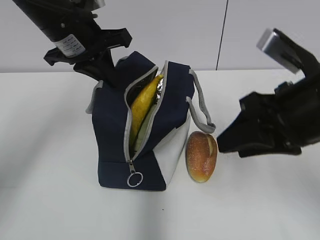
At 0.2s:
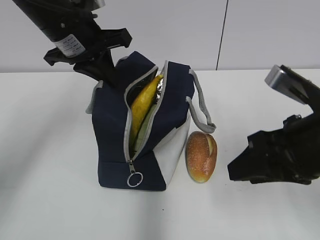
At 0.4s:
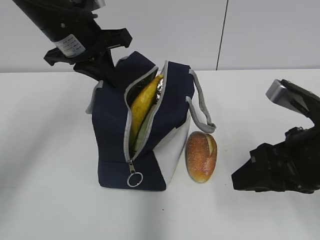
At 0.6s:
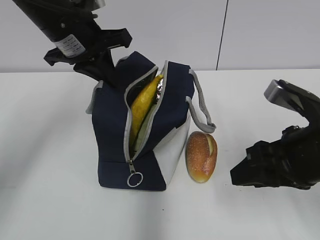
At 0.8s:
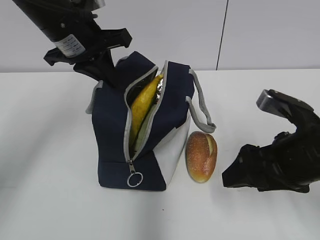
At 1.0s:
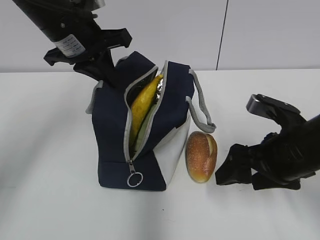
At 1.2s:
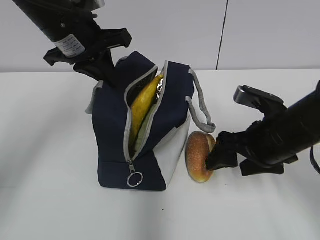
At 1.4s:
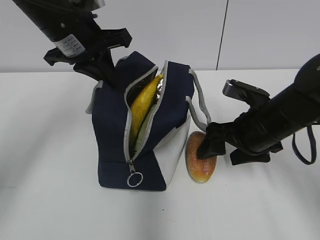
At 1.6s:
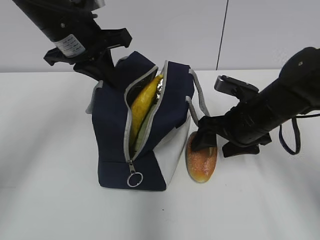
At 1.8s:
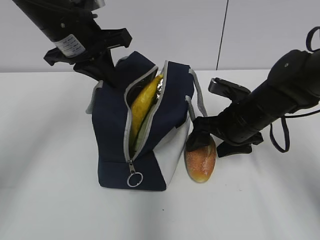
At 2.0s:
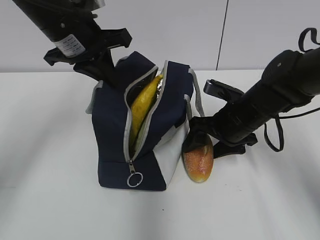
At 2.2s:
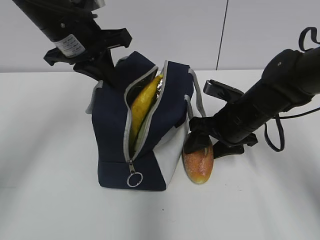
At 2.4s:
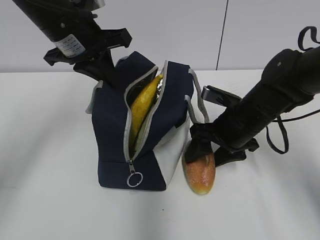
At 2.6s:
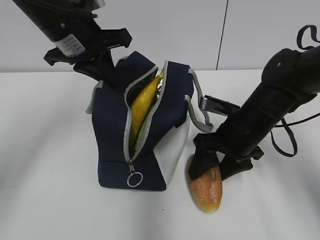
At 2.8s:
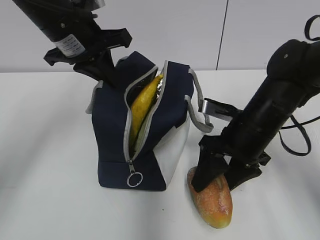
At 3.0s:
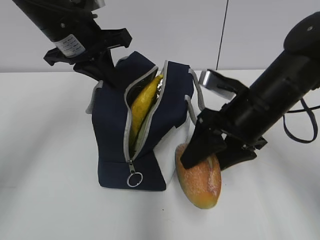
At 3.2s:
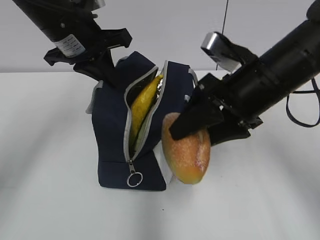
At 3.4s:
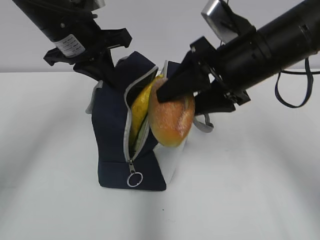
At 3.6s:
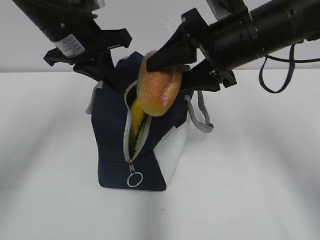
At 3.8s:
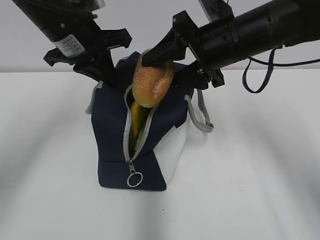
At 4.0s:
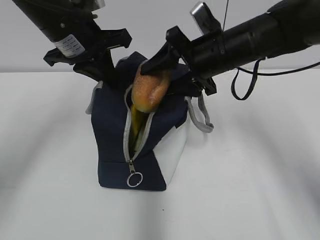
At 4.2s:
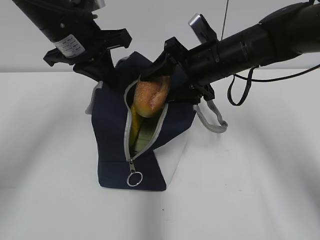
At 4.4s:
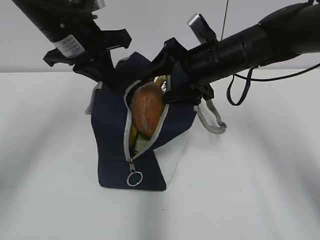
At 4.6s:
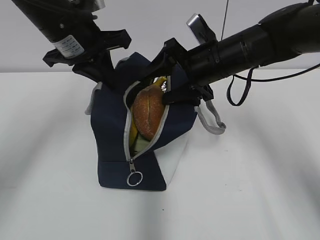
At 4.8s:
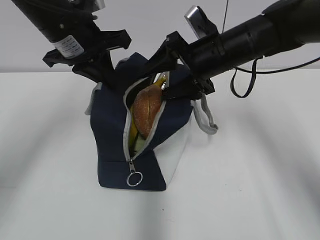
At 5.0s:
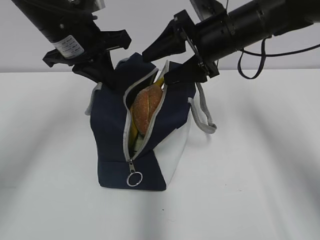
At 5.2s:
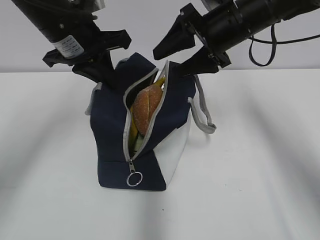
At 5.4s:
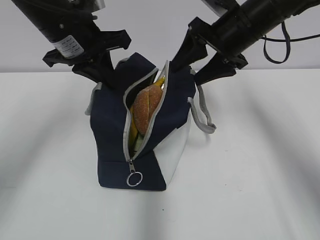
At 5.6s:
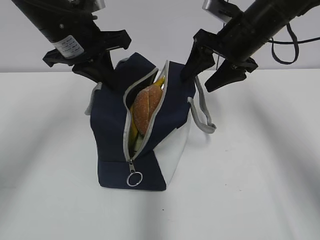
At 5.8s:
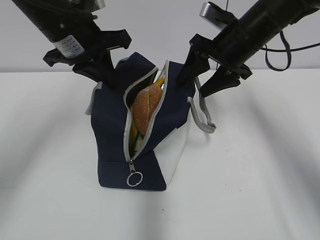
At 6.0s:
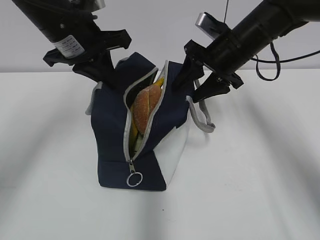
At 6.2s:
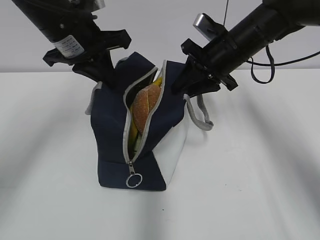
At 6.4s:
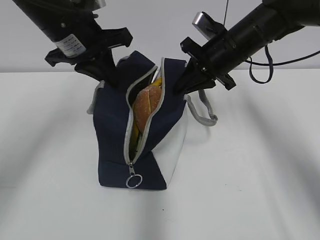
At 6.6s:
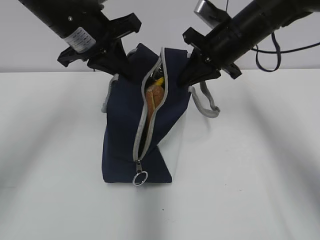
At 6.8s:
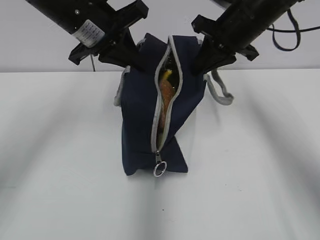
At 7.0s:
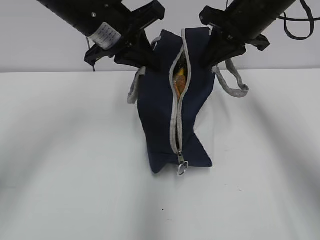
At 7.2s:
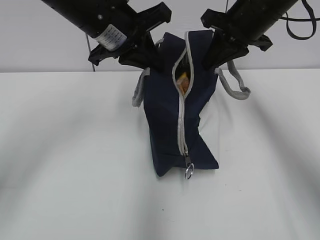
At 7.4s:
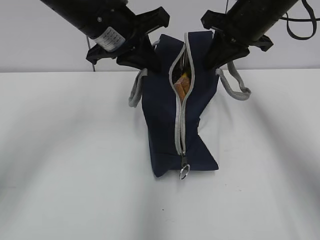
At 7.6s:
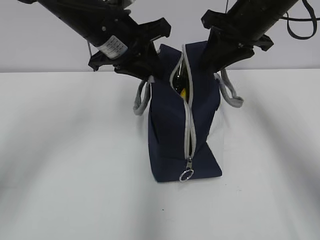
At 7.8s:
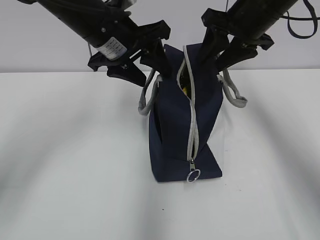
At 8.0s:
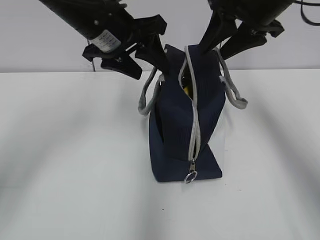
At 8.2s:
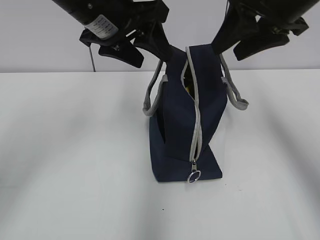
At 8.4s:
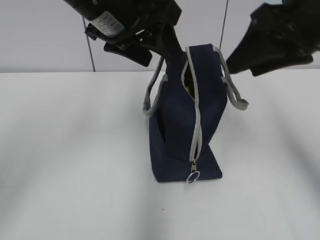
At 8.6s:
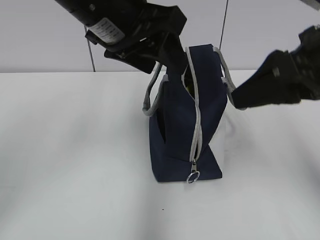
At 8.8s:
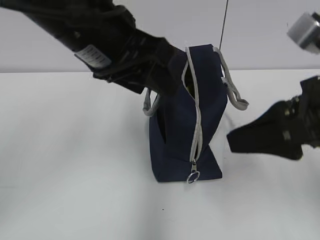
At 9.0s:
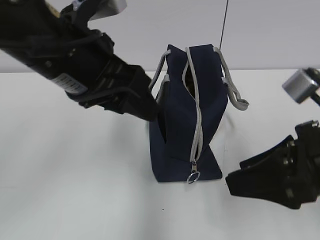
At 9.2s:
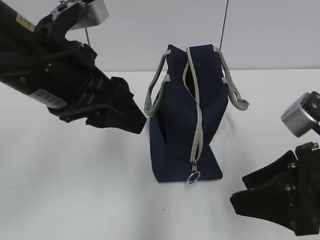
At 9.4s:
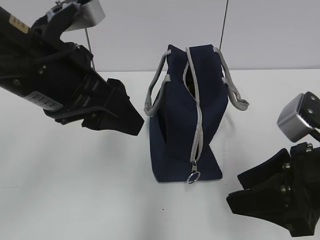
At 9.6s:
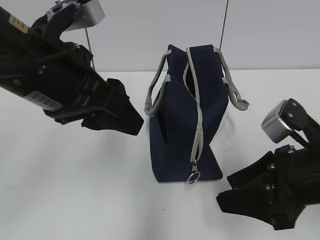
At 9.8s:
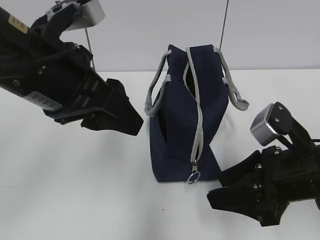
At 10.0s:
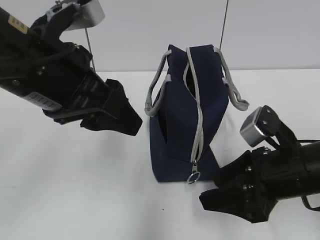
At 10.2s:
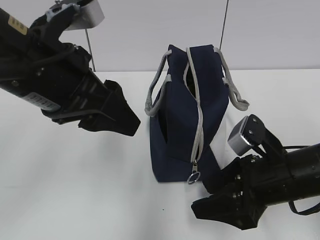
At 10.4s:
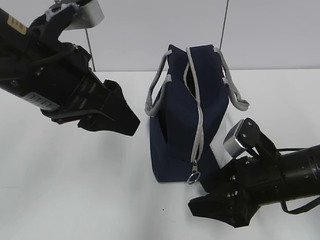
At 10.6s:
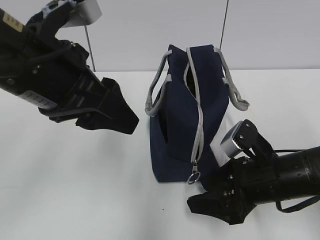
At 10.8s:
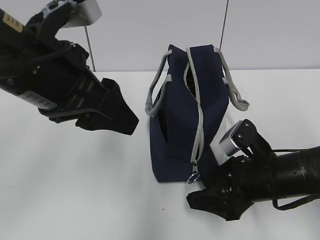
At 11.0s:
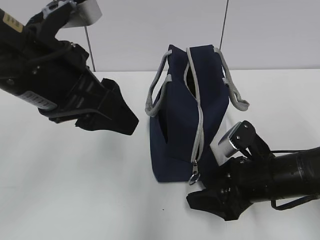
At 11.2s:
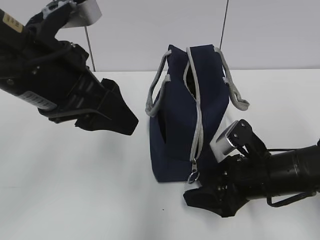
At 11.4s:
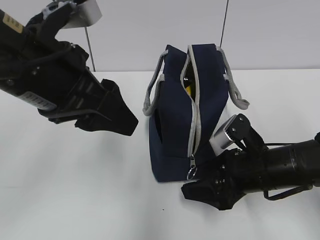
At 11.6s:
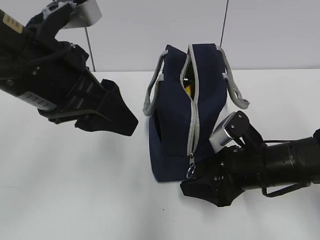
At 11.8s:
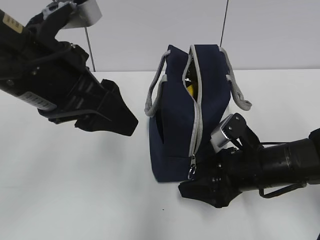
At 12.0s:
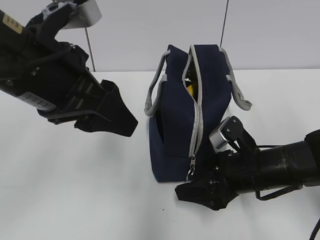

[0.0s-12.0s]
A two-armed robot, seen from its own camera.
0.0s to 1.6s: The right gripper is displaced downward and forward by approximately 15 cm, and opens up.
1.6s to 3.0s: The right gripper moves roughly 5 cm.
3.0s to 4.4s: The right gripper is displaced forward by about 10 cm.
6.0s to 7.6s: The left gripper moves to the right, roughly 5 cm. The right gripper shifts roughly 5 cm upward, and closes its fingers.
7.6s to 9.0s: The right gripper moves backward, some 20 cm. The left gripper travels backward by roughly 10 cm, and opens.
9.0s to 10.4s: The right gripper goes about 10 cm downward.
10.4s to 12.0s: The grippers move only a little.

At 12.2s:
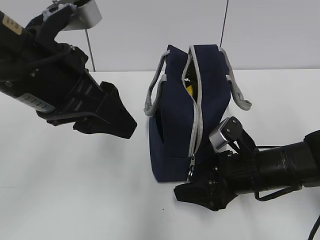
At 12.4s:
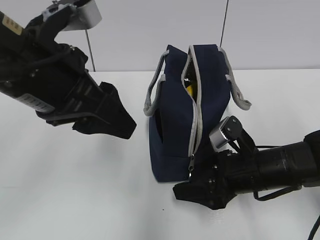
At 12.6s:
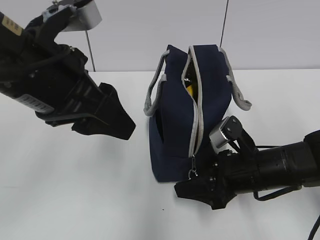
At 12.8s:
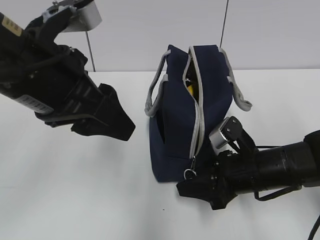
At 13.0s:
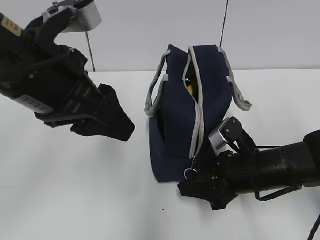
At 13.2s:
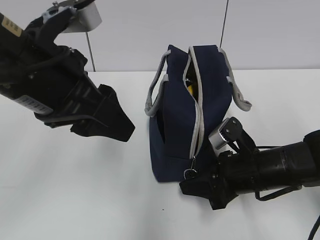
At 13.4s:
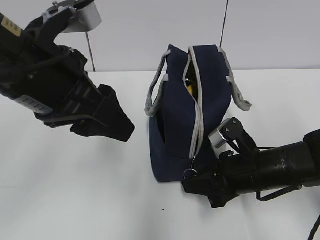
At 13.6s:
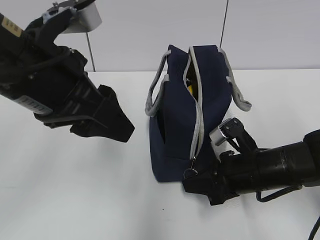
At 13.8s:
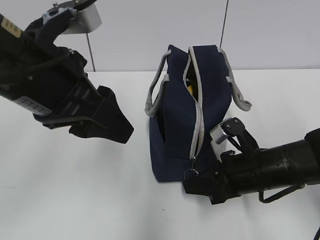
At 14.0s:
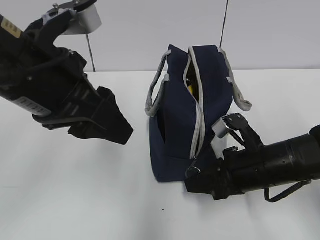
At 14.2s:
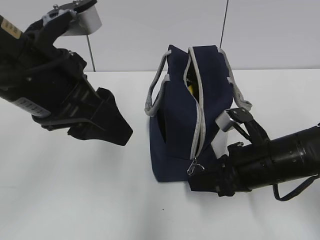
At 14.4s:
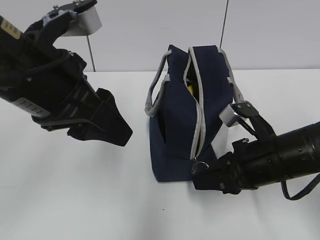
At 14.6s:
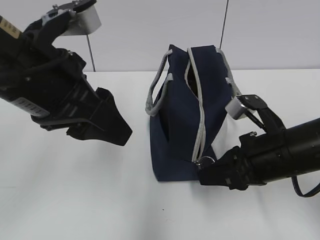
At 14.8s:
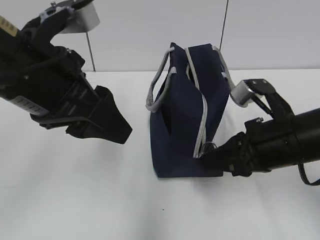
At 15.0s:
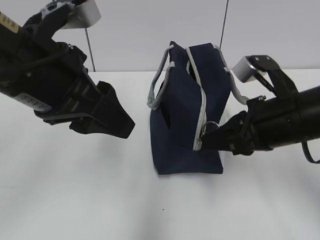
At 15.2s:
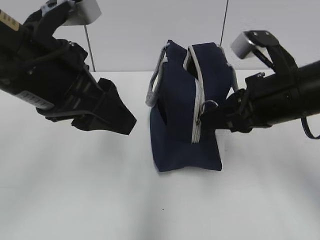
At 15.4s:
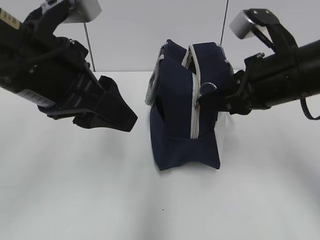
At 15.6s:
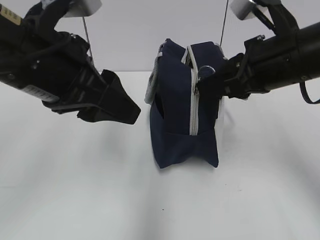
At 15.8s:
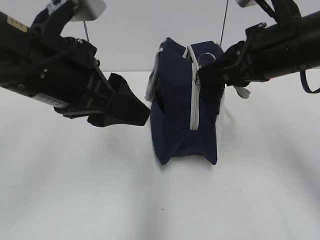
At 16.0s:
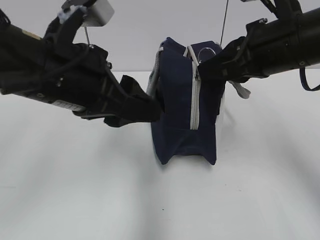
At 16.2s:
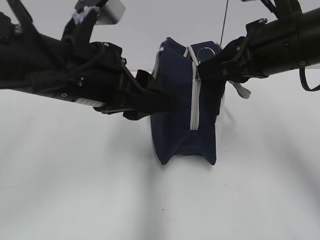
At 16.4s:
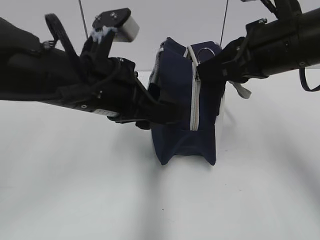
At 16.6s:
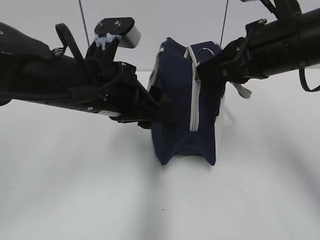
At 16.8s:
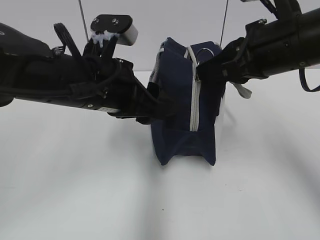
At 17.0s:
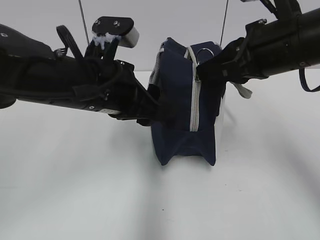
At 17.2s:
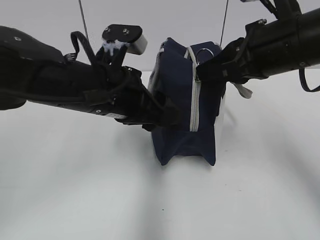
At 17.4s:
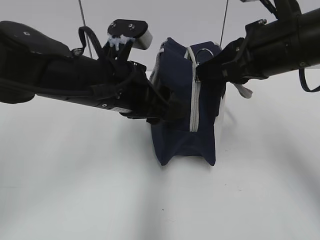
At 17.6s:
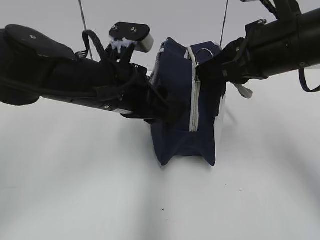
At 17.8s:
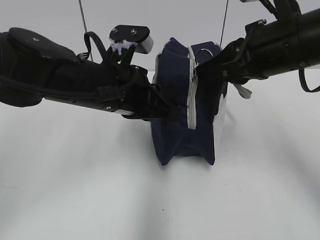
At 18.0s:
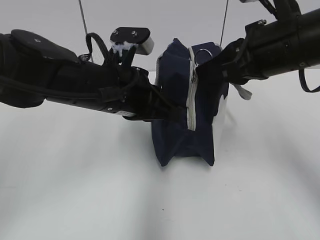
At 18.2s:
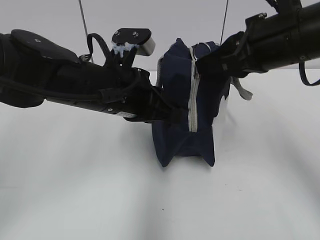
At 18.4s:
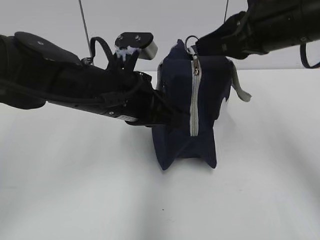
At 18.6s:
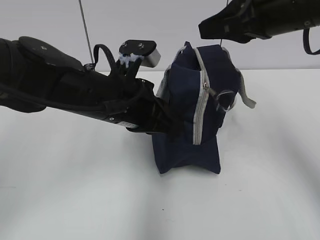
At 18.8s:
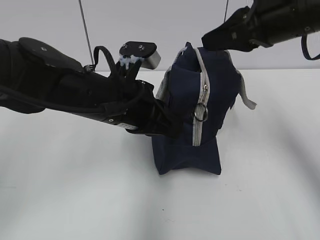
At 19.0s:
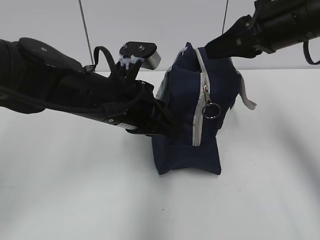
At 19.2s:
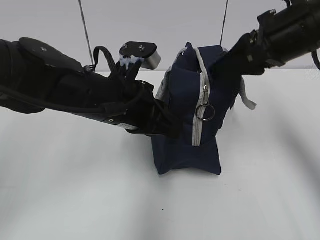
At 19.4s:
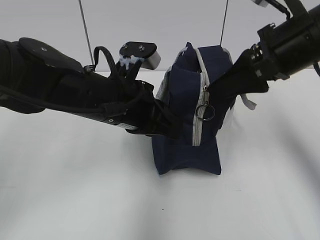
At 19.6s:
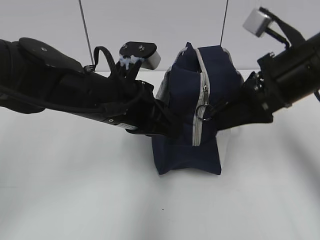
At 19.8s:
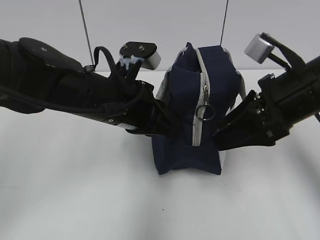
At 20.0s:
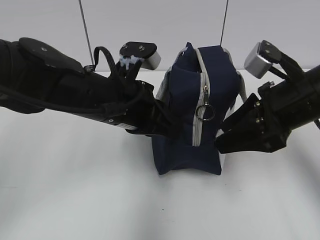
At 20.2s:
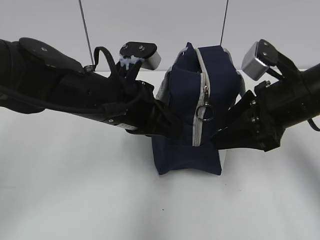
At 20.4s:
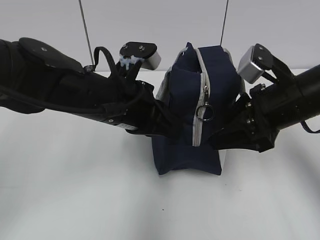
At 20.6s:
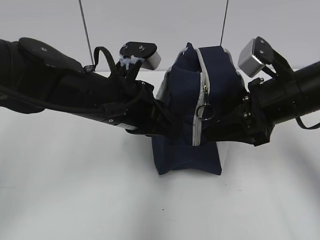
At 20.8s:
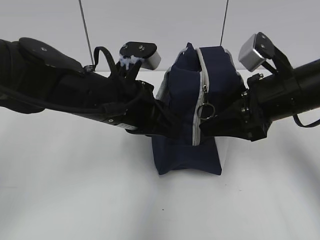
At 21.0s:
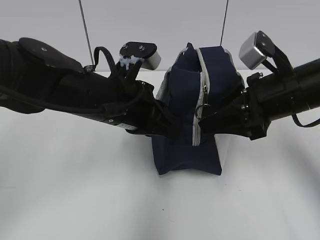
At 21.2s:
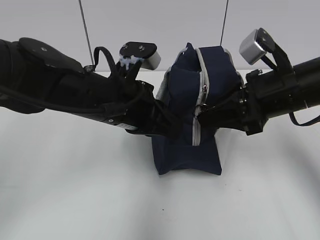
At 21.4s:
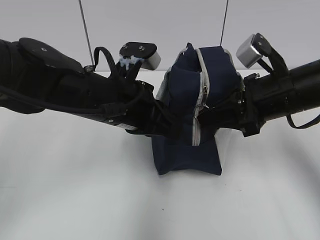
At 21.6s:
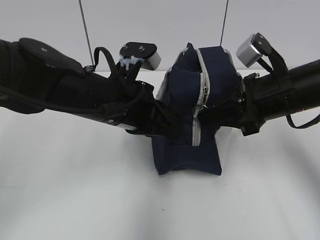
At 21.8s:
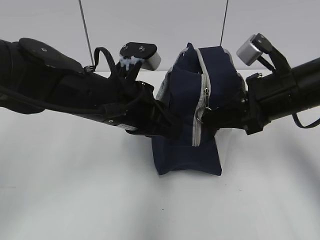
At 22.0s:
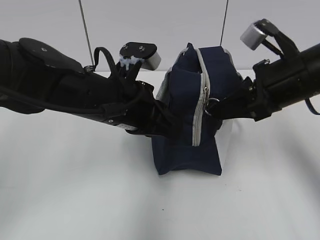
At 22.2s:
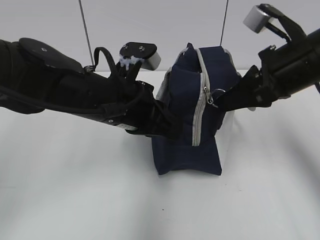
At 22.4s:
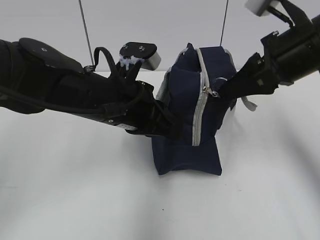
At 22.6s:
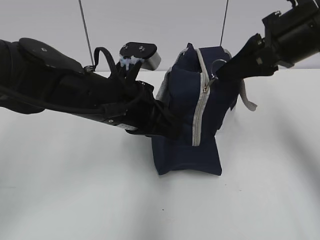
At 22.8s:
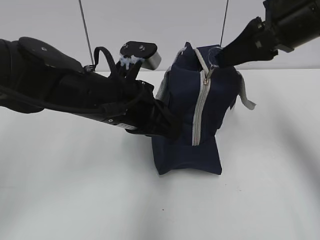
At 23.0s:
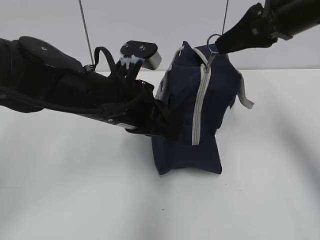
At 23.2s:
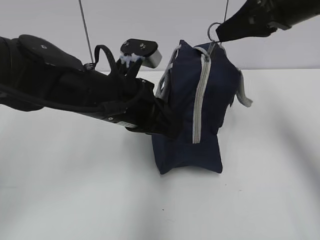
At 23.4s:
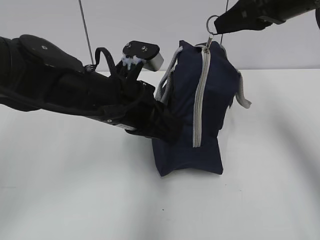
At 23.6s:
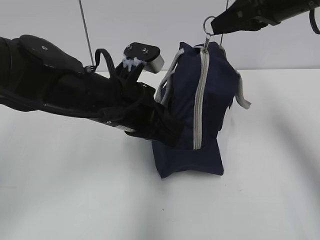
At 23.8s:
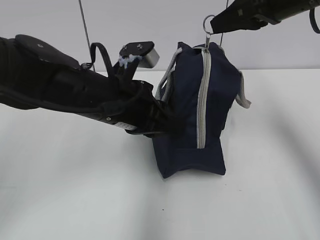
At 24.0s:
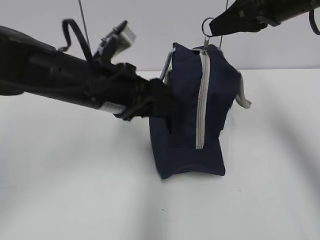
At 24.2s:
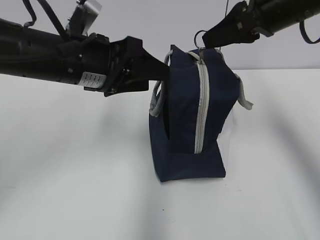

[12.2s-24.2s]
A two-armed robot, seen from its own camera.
12.2s to 13.8s: The right gripper closes up.
13.8s to 15.2s: The right gripper goes roughly 15 cm upward.
15.2s to 16.6s: The right gripper is displaced upward by approximately 5 cm; the left gripper moves downward, approximately 5 cm.
16.6s to 18.2s: The left gripper closes up.
18.2s to 19.8s: The right gripper heads downward, covering roughly 5 cm, and opens up.
19.8s to 21.2s: The grippers make only small movements.
21.2s to 22.6s: The right gripper is displaced upward by about 10 cm, and closes.
22.6s to 24.2s: The left gripper shifts by about 5 cm, and opens.
